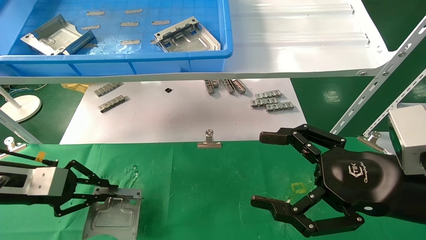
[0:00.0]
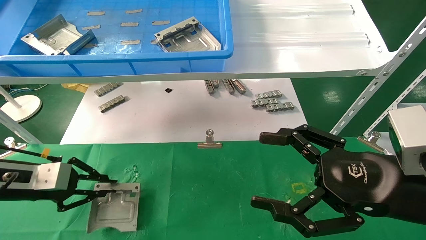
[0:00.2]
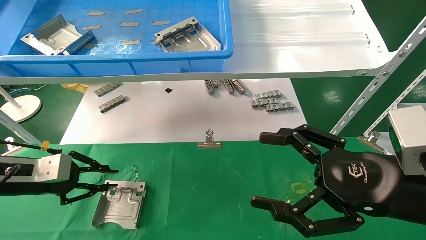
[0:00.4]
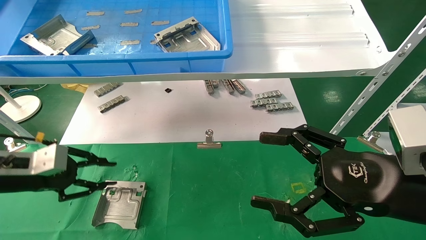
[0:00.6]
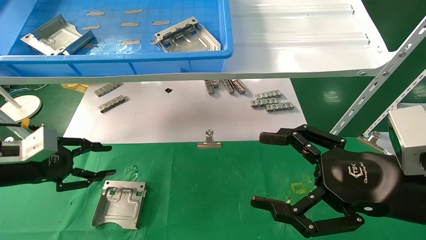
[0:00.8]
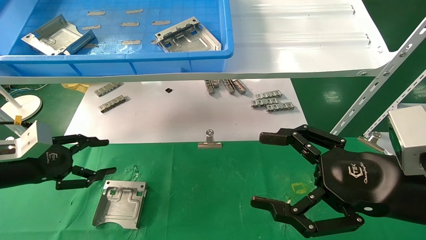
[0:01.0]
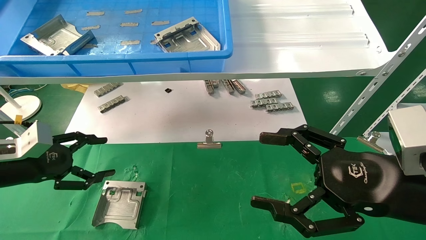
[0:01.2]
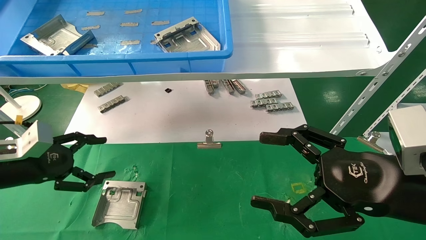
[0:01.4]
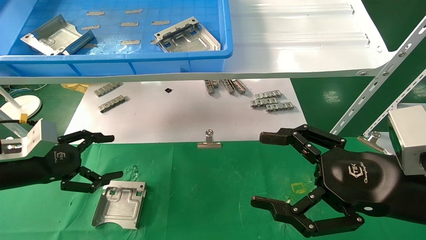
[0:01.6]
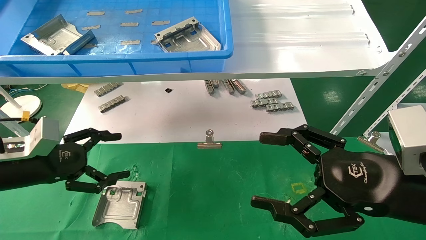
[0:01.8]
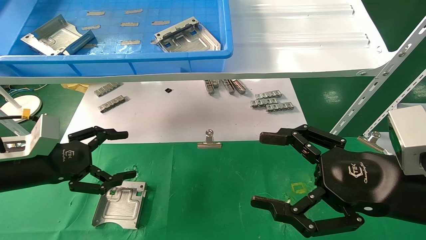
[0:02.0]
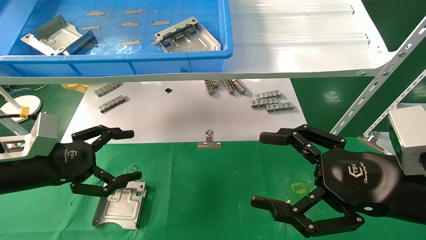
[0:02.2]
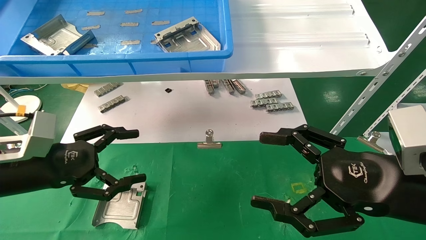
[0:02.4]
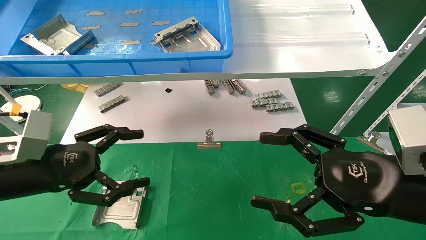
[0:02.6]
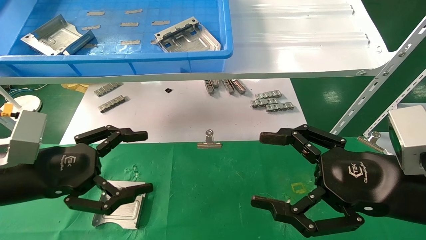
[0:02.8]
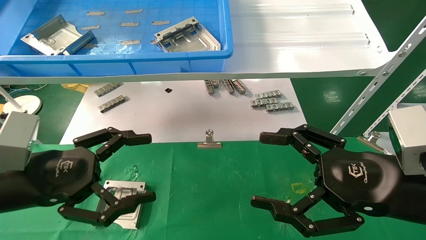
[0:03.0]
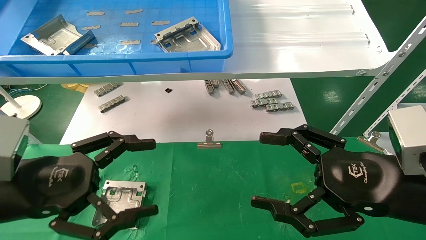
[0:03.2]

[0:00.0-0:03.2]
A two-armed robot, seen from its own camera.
Task of the whole recording: use the mechanical arm to pick up the parts and place them on the table.
0:00.0 to 0:01.6: The left gripper opens its fingers.
0:01.6 to 0:03.2: The left gripper moves backward and to the right, about 15 cm.

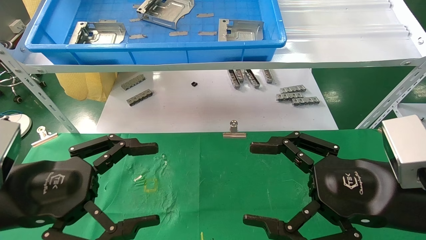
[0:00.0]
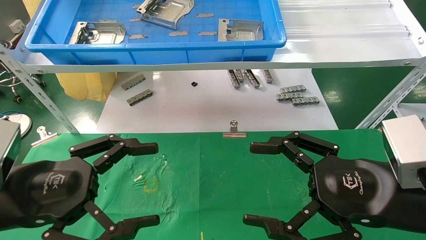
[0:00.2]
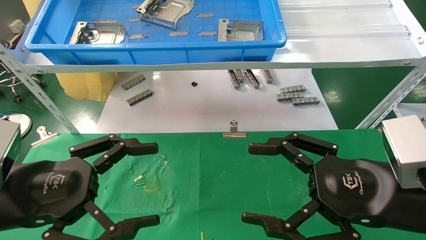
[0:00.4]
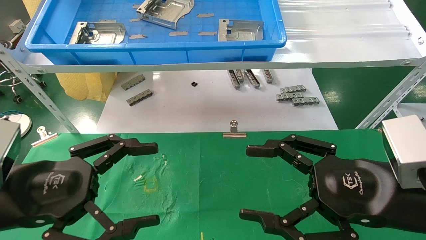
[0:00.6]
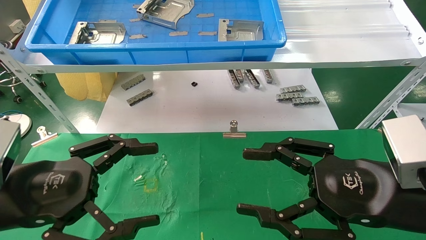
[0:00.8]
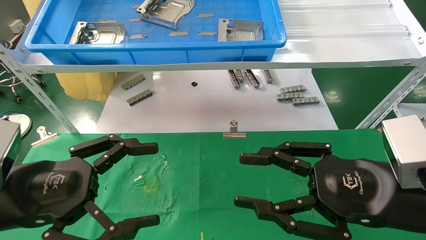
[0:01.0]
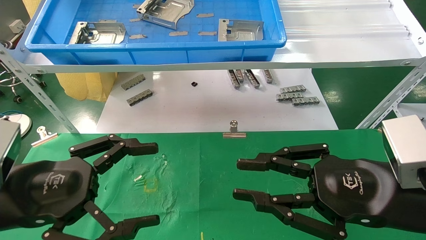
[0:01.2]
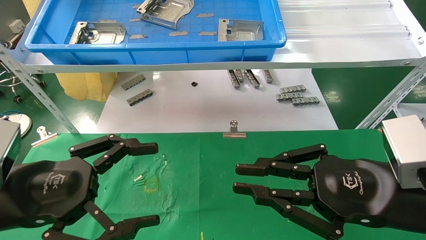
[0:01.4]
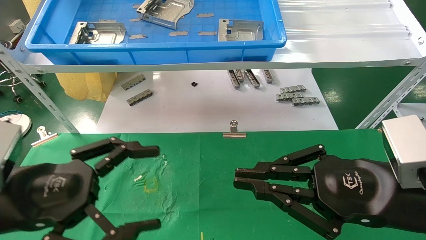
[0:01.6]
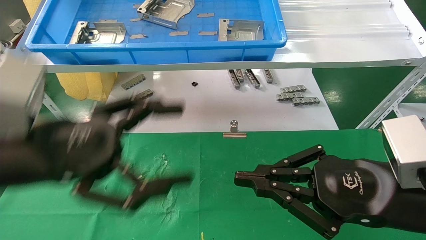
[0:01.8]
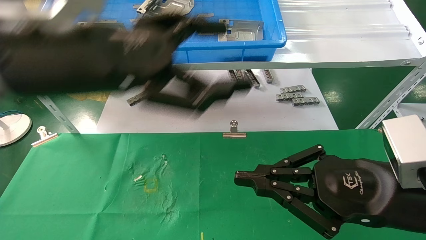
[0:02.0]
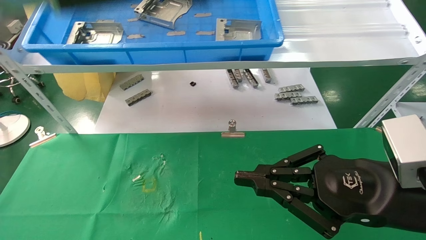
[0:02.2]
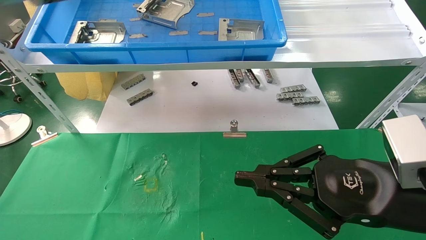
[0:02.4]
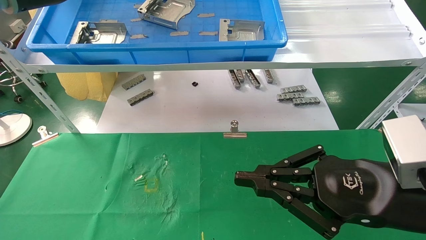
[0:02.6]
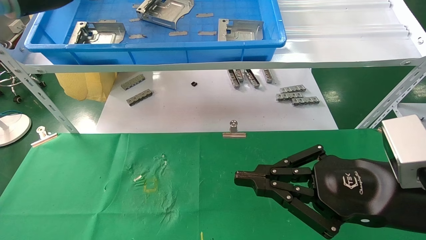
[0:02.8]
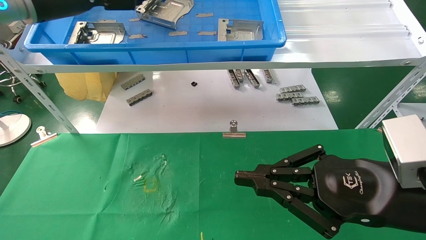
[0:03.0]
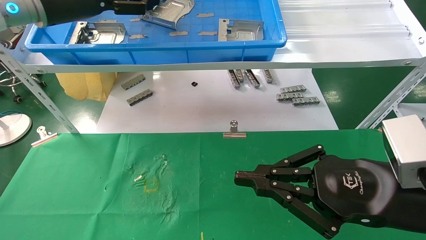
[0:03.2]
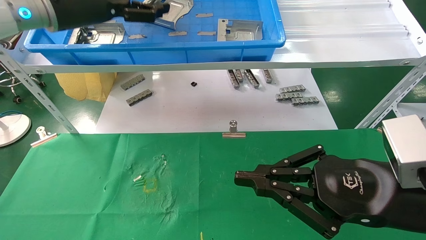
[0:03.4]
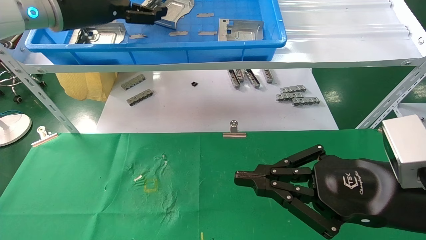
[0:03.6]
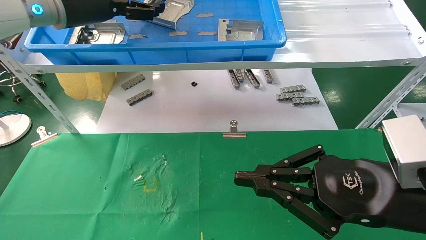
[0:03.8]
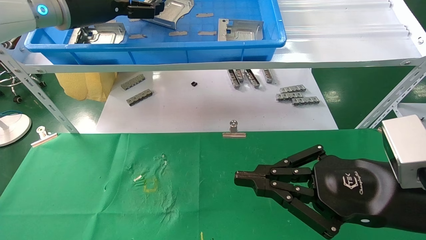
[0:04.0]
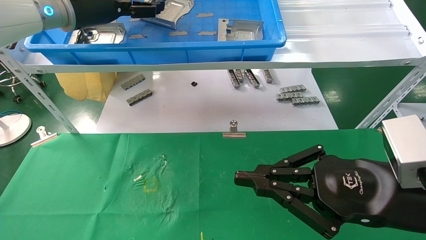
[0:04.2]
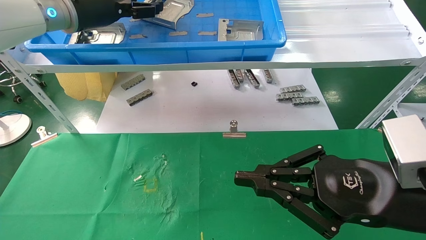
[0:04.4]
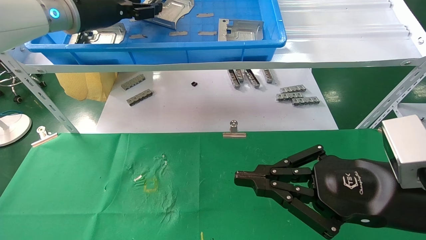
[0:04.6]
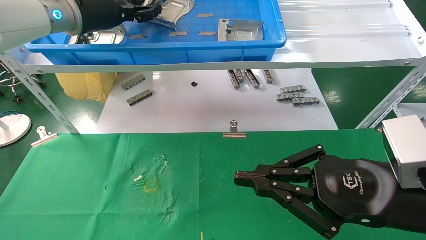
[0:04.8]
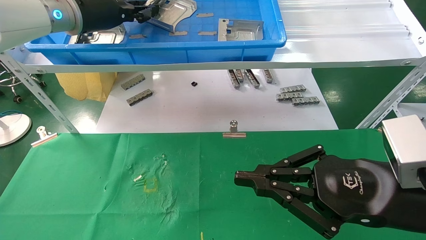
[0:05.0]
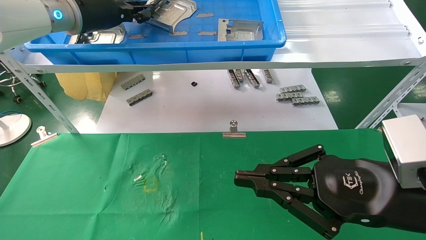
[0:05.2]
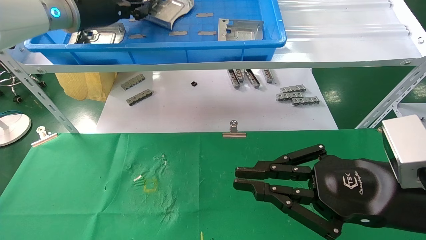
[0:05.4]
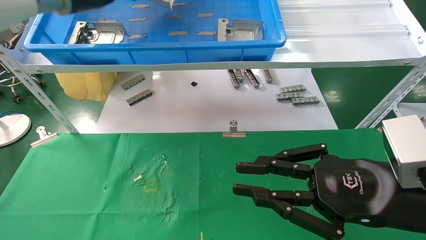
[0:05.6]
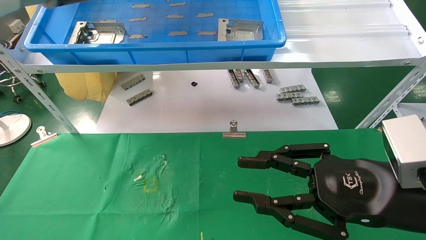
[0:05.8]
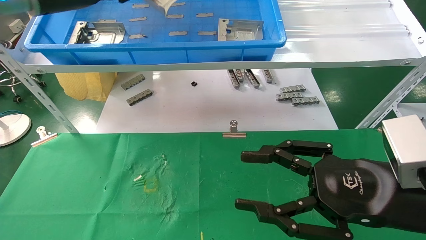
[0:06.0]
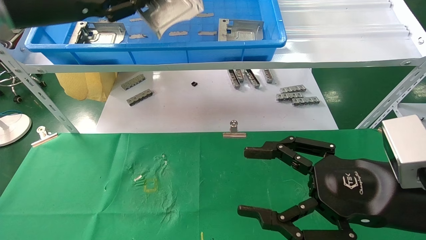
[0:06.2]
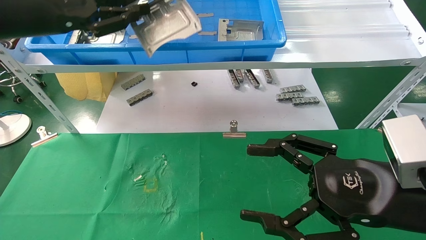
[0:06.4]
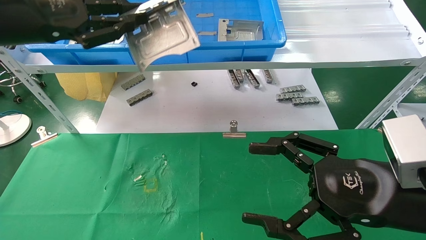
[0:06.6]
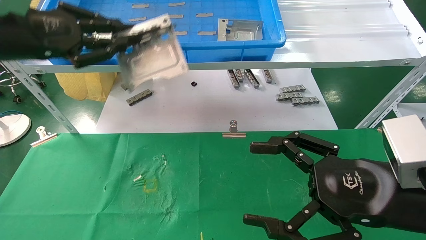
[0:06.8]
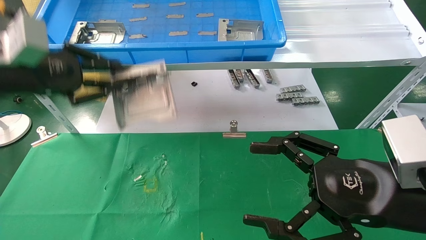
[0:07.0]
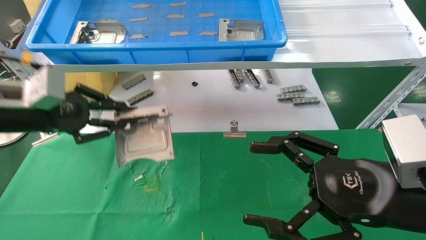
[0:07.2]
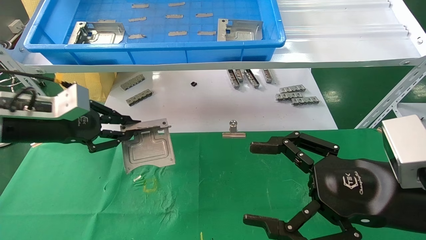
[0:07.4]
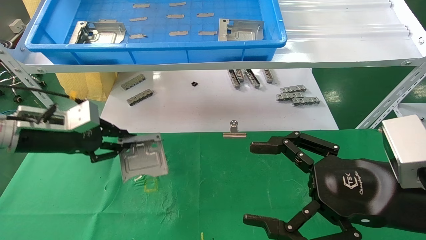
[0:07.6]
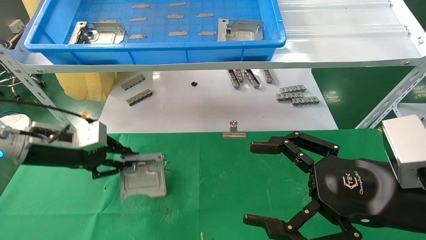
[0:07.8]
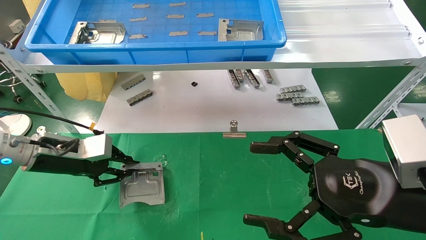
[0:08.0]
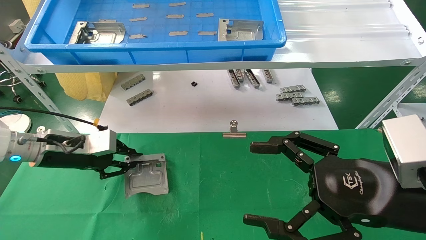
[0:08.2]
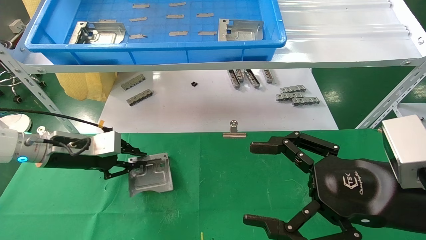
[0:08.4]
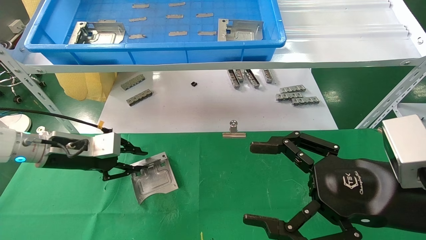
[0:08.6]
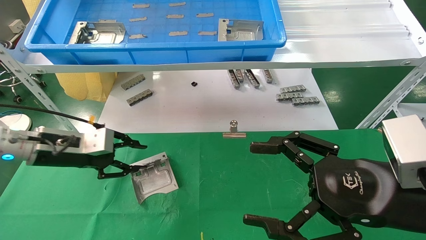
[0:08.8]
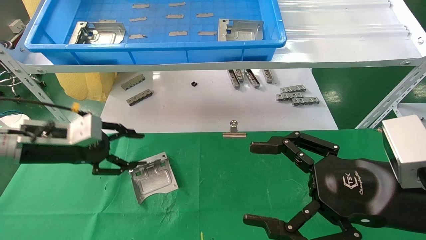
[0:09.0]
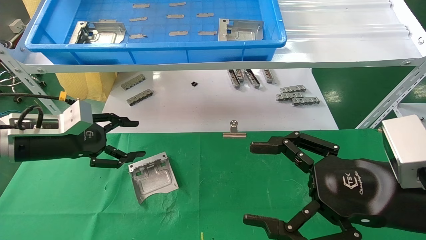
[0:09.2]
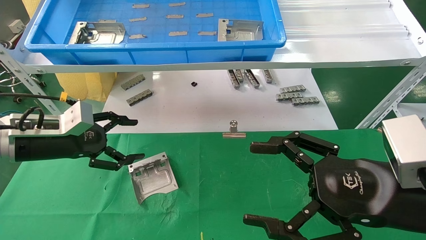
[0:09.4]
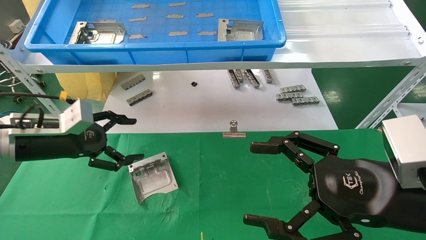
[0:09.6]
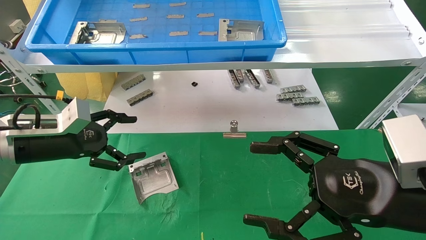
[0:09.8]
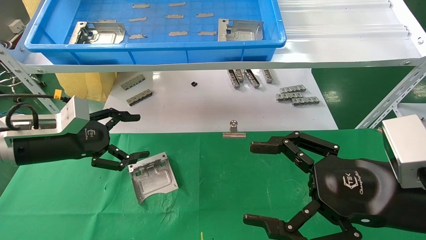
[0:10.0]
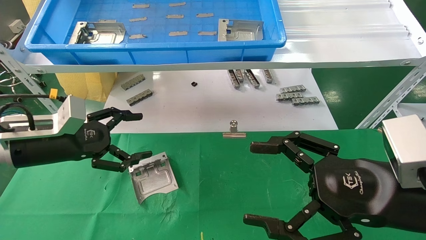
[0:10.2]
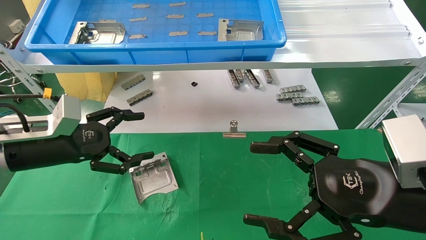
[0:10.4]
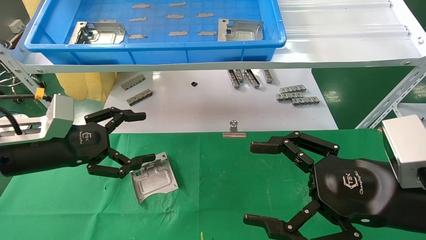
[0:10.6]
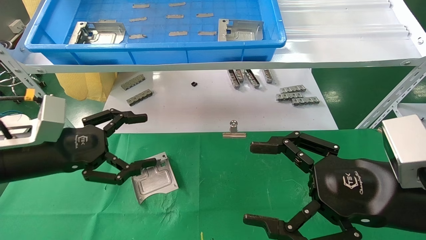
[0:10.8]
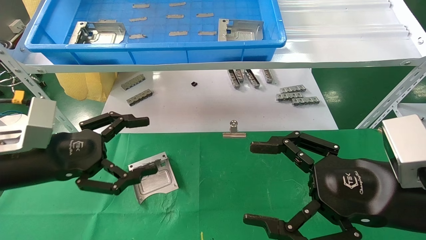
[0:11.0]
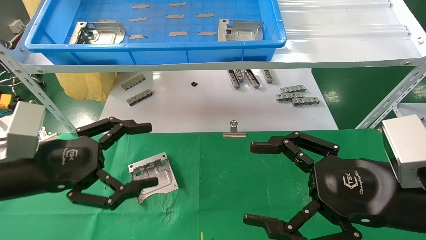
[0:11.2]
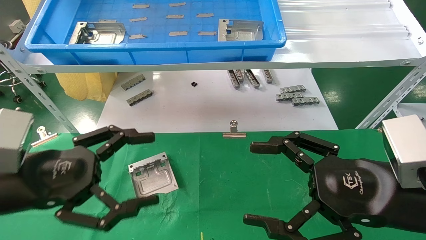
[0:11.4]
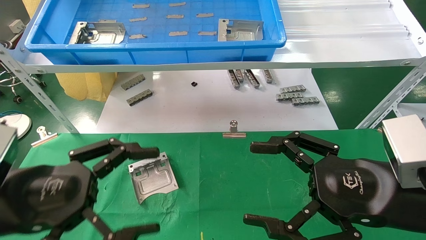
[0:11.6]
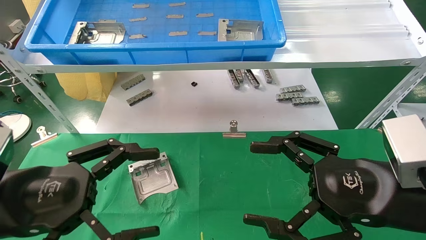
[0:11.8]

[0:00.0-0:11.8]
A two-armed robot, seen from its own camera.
Task of the whole recording: use the mechanical arm to pick up the parts and place them on the table.
Step, 0:01.8 to 0:05.2: Pick up the hard drive bracket from the feeding area.
Step, 0:05.4 to 0:08.8: Place the hard drive bracket into the box.
0:00.0 to 0:01.4: The right gripper closes up.
0:01.4 to 0:03.0: The left gripper heads upward and forward, covering about 30 cm.
0:03.0 to 0:04.4: The left gripper moves to the right, about 5 cm.
0:04.4 to 0:06.0: The right gripper opens up, while the left gripper shifts roughly 5 cm backward, and closes its fingers.
0:06.0 to 0:07.4: The right gripper opens. The left gripper shifts about 20 cm downward.
0:07.4 to 0:08.8: The left gripper goes about 5 cm downward.
0:08.8 to 0:10.4: The left gripper heads backward, covering about 5 cm, and opens.
0:10.4 to 0:11.8: The left gripper shifts about 15 cm backward.

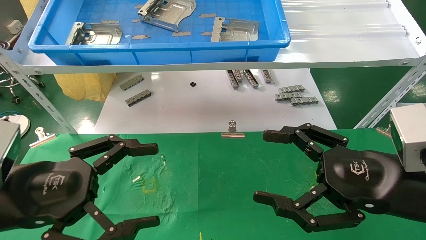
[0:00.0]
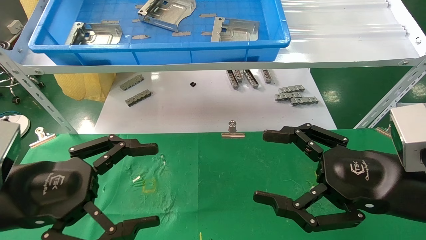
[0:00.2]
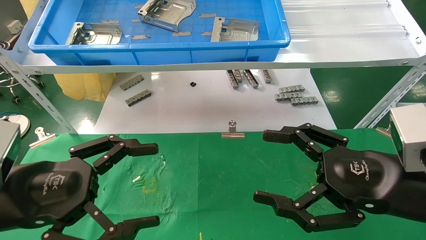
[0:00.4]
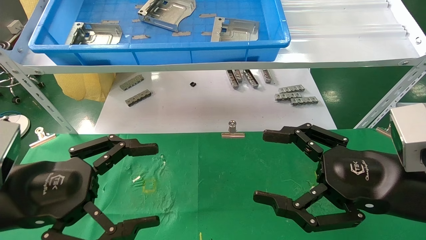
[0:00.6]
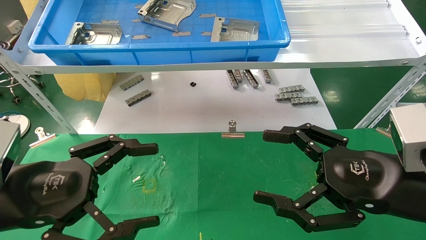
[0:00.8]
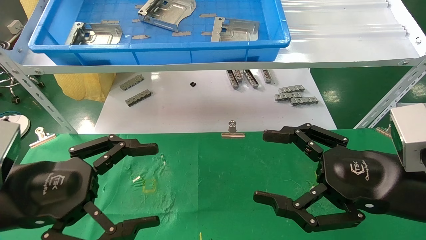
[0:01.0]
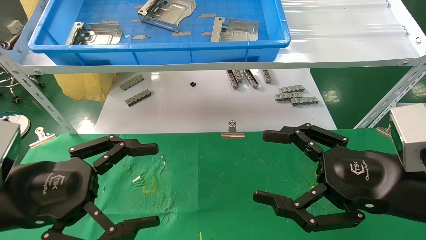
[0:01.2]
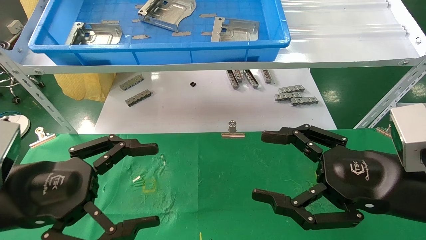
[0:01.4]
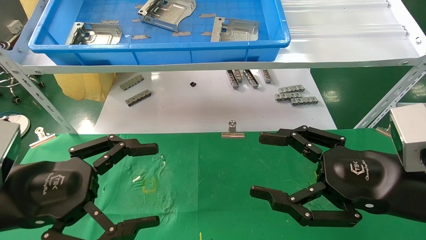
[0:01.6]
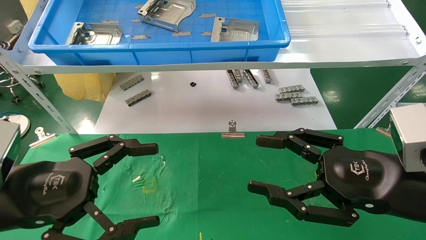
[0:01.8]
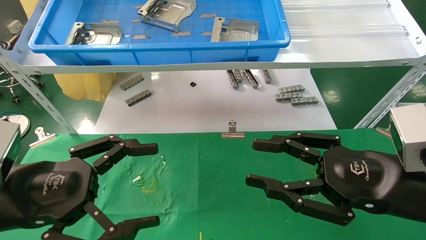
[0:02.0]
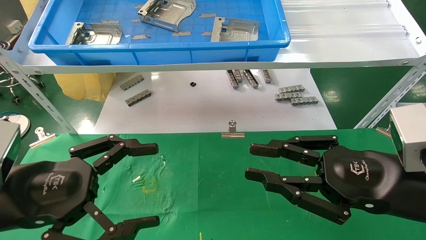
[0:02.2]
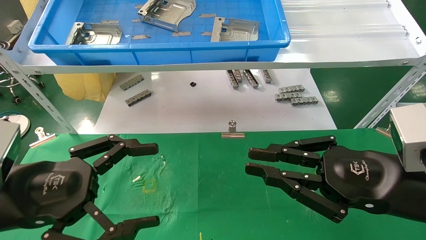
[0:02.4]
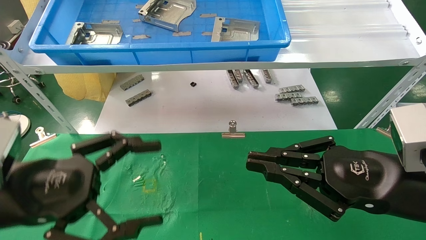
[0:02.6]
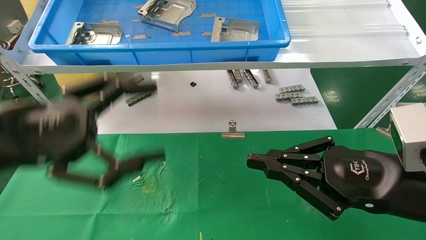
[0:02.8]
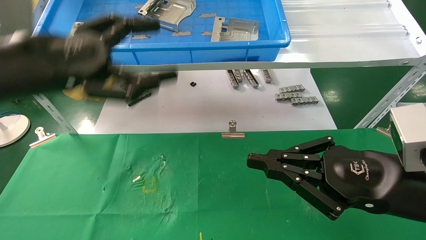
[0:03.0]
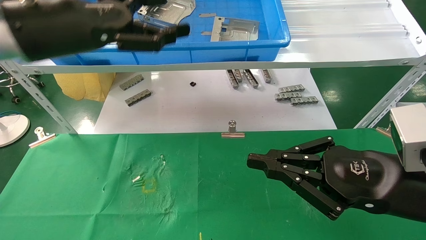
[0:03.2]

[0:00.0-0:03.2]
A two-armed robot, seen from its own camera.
Task of the whole recording: use the mechanical arm to pick up the parts and place them on the table.
0:00.0 to 0:01.6: Neither gripper changes place.
0:01.6 to 0:03.2: The right gripper closes its fingers. The left gripper shifts some 20 cm upward and forward.
